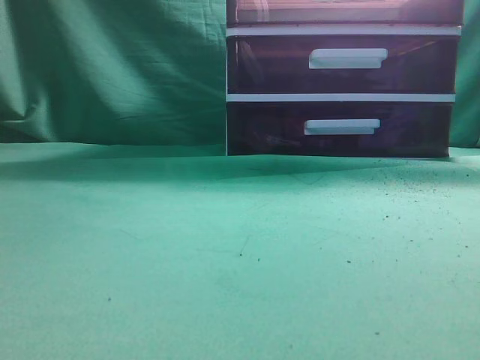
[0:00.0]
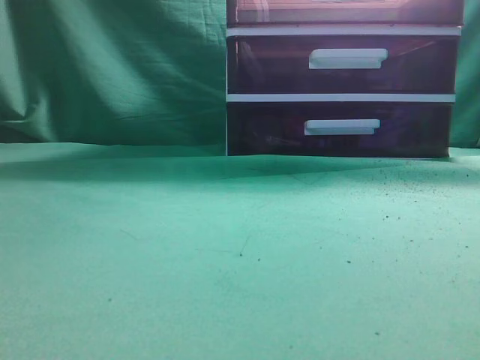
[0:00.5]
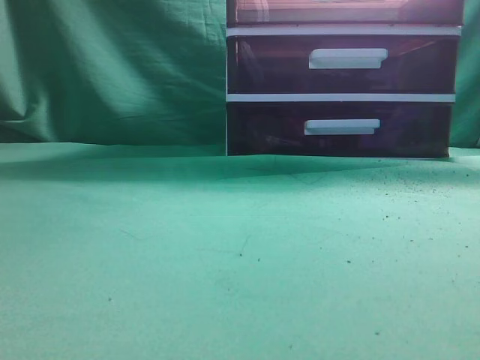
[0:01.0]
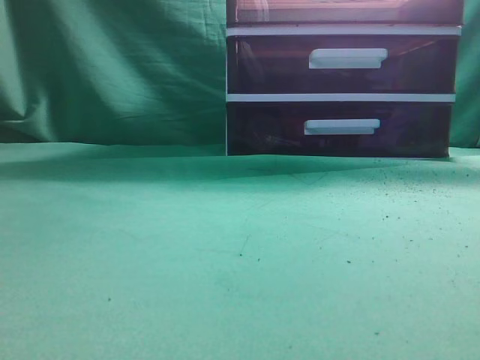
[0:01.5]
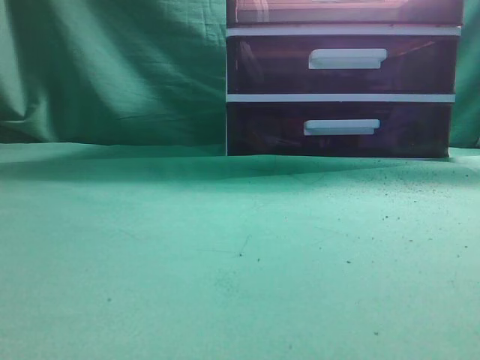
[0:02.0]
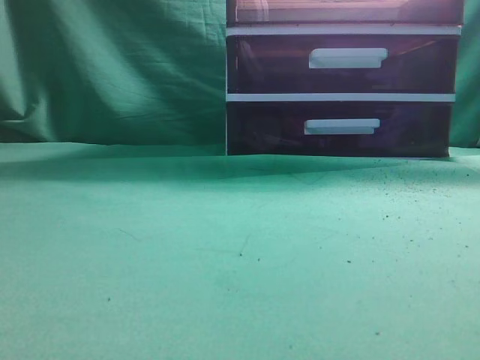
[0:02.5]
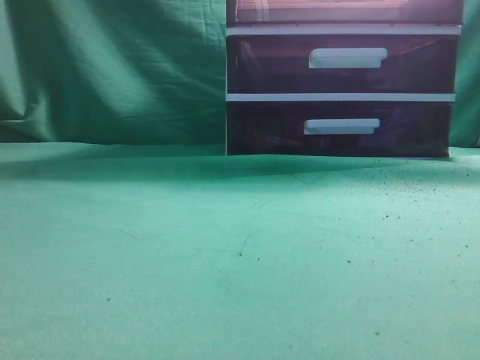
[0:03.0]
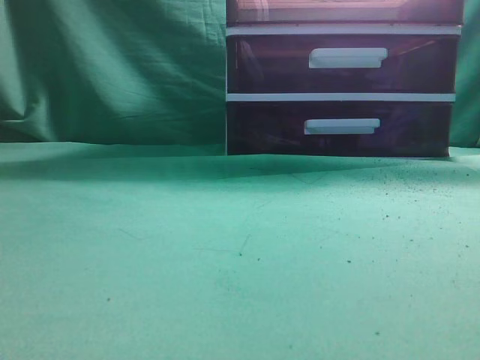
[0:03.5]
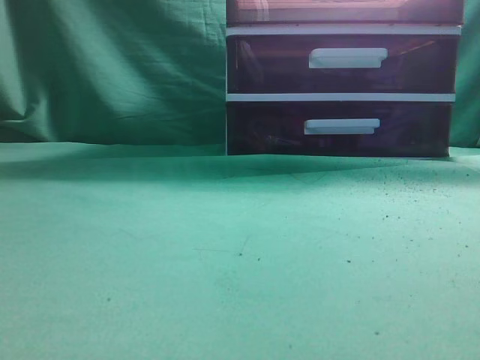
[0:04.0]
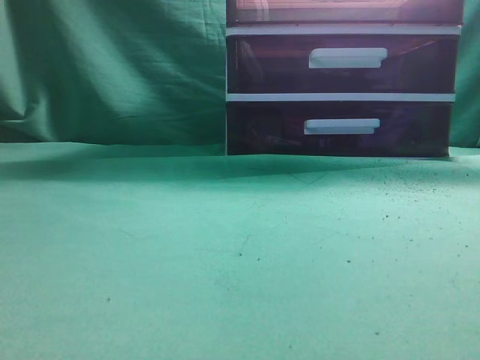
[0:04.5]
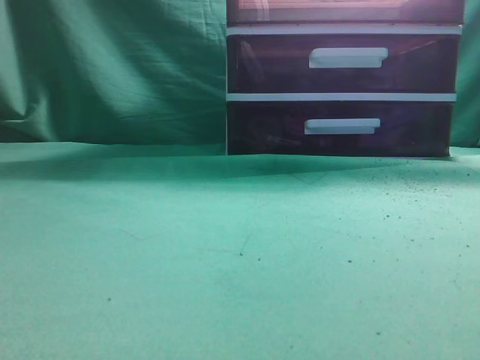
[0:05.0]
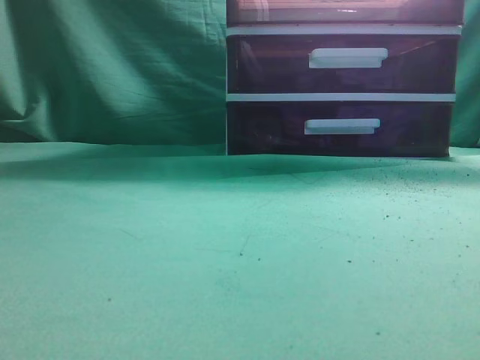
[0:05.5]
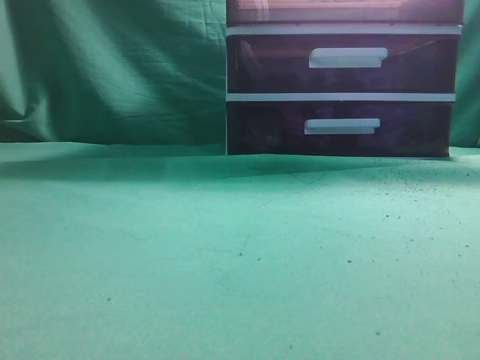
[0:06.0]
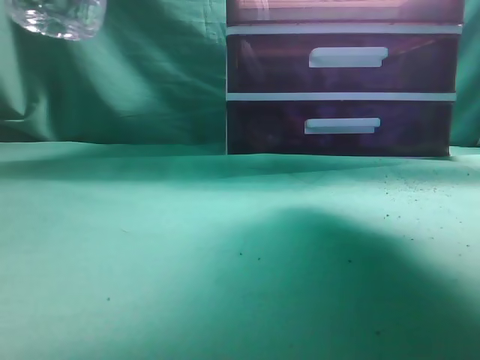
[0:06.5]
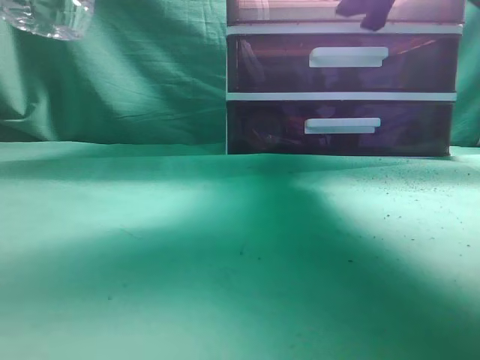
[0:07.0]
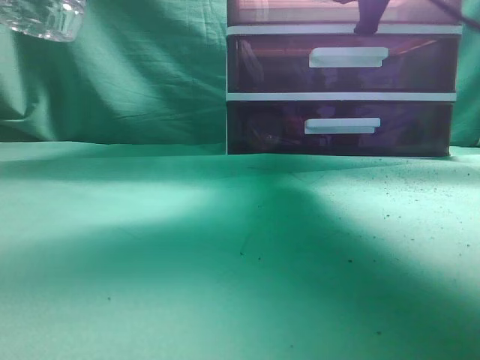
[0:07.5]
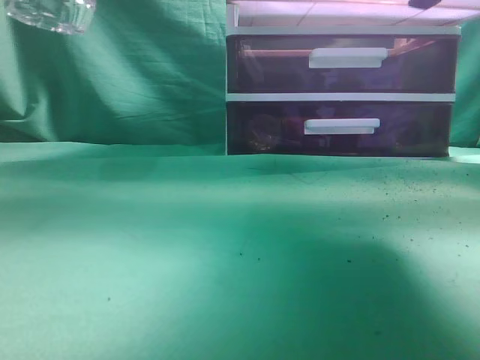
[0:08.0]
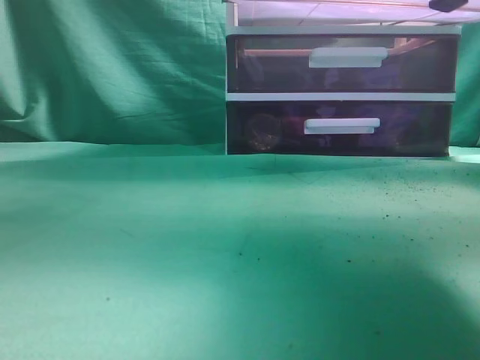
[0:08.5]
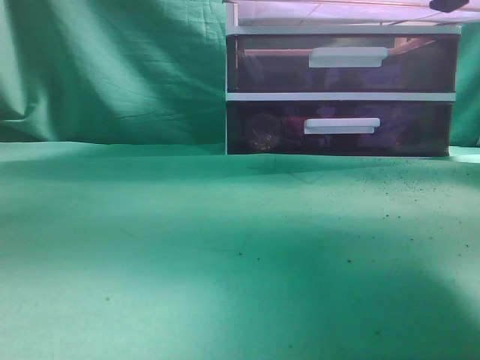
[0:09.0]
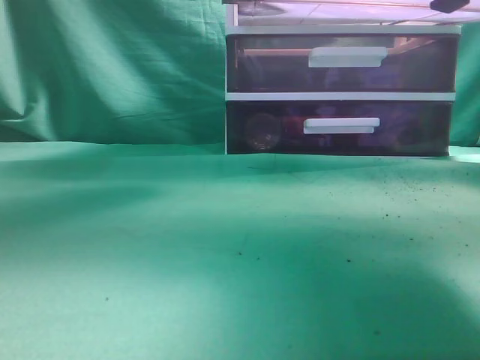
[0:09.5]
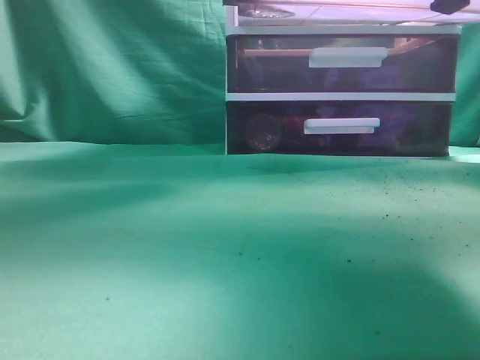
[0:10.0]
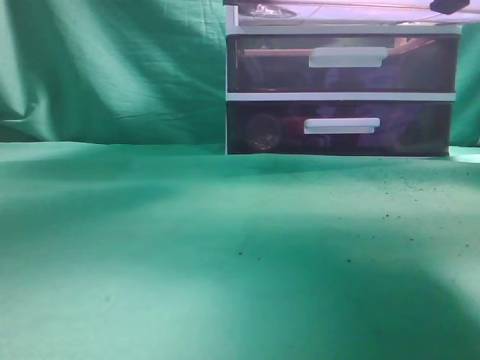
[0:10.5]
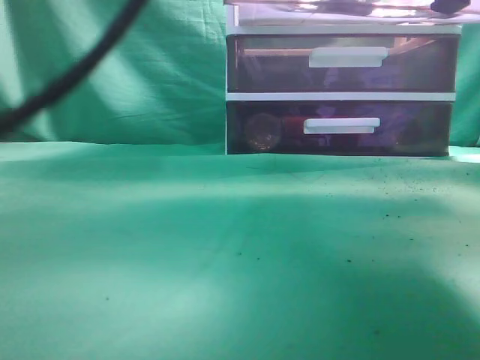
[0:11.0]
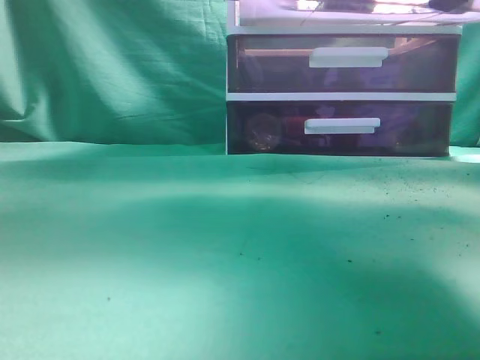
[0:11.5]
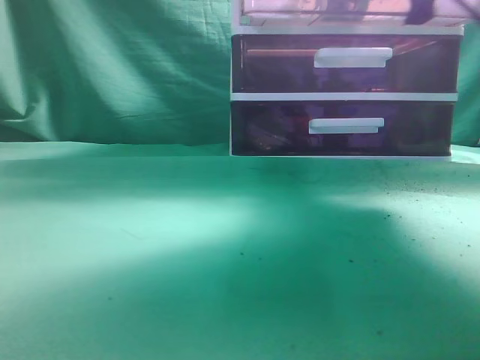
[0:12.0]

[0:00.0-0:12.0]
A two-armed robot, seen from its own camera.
Task of the whole recording: place the water bottle into the drawer.
Step, 0:00.0 to 0:08.0: Open the drawer.
Step, 0:08.5 to 0:11.0: Place the water bottle inside the drawer.
0:06.0 to 0:08.0: The right gripper heads forward, downward and to the left, covering some 15 cm, and opens, then closes once more.
0:08.0 to 0:10.0: The left gripper travels to the right and forward by some 20 cm, travels upward and back again, roughly 15 cm each way, and opens its fingers.
0:10.0 to 0:12.0: The right gripper shifts roughly 10 cm forward; the left gripper moves backward, upward and to the left, about 15 cm, and closes its fingers.

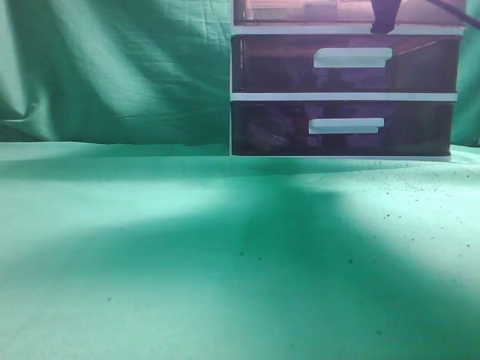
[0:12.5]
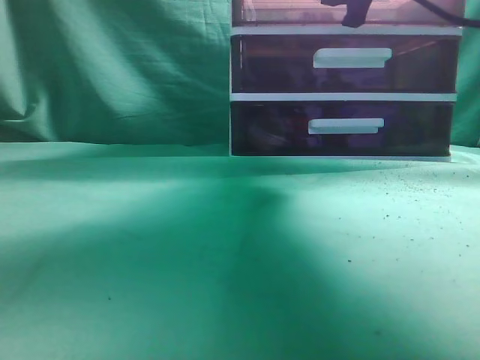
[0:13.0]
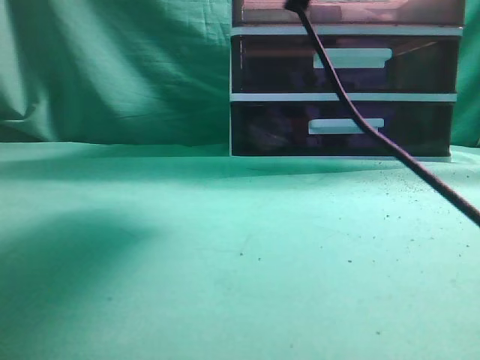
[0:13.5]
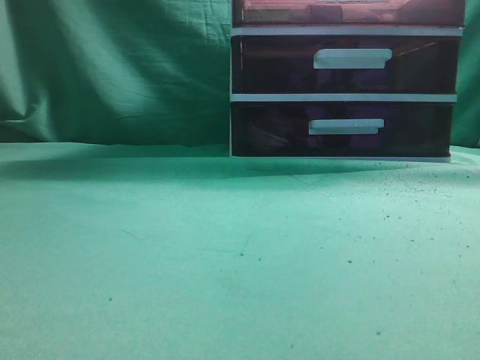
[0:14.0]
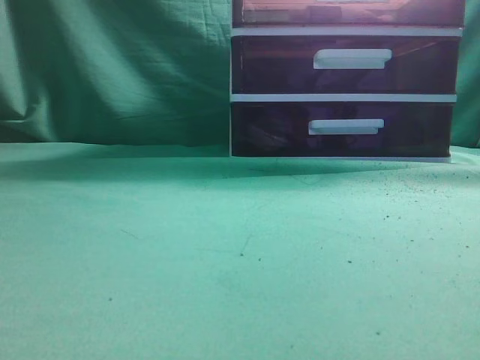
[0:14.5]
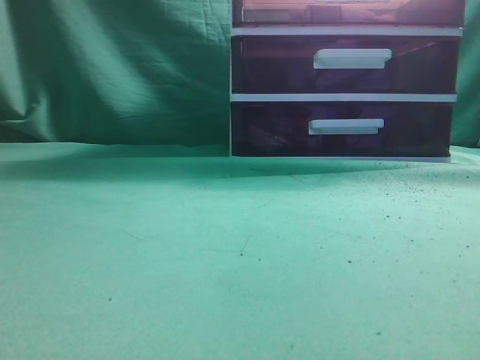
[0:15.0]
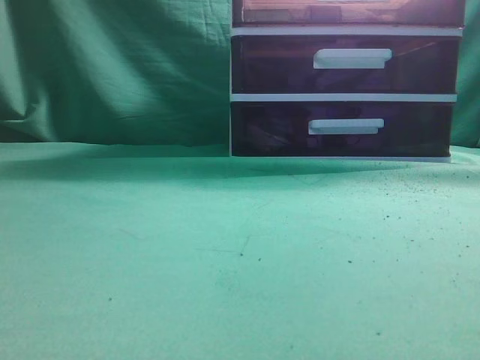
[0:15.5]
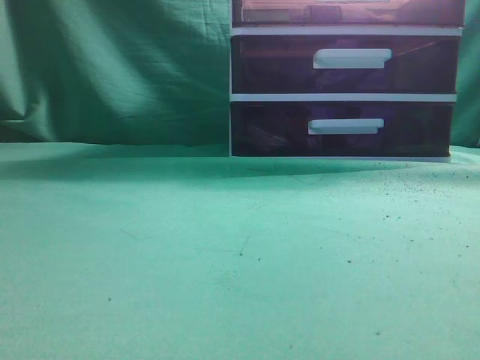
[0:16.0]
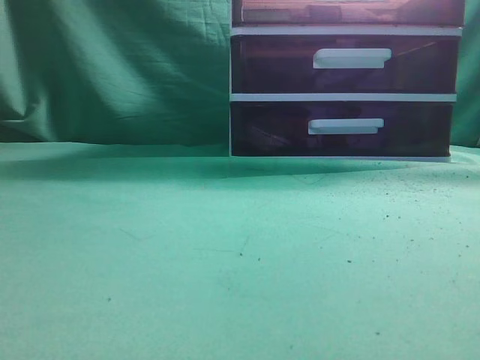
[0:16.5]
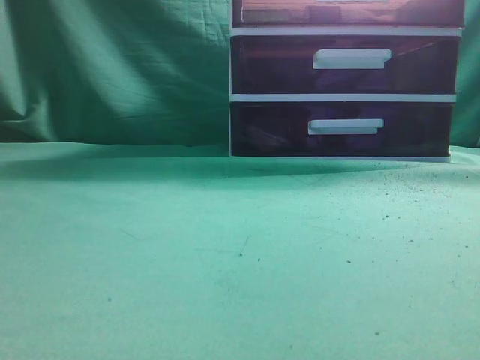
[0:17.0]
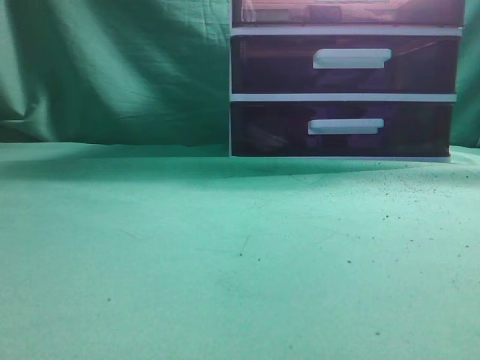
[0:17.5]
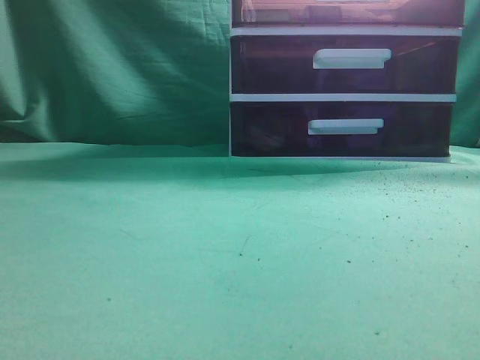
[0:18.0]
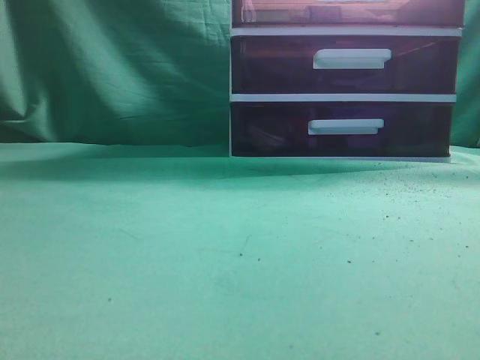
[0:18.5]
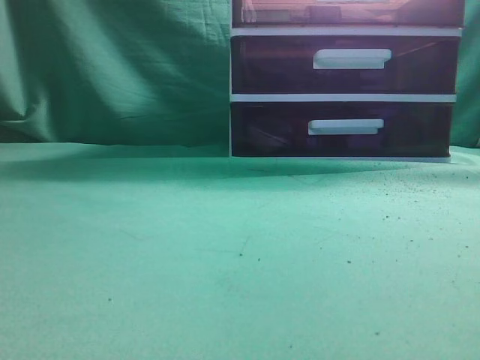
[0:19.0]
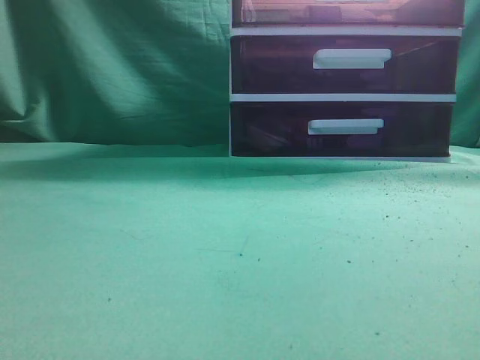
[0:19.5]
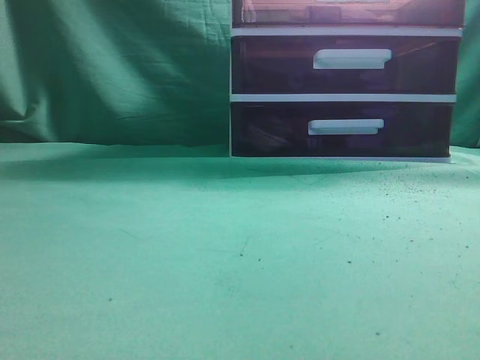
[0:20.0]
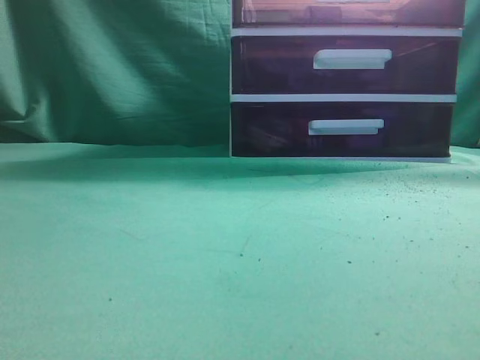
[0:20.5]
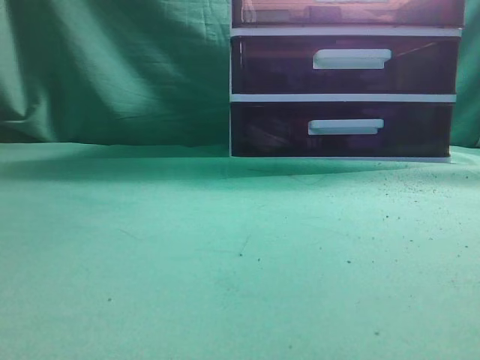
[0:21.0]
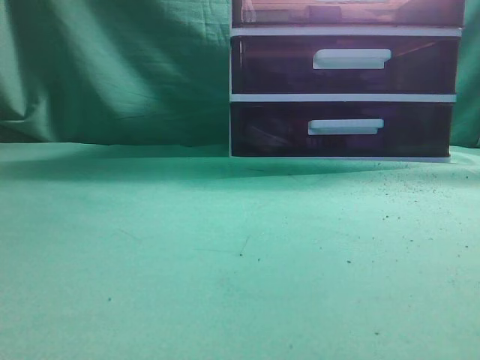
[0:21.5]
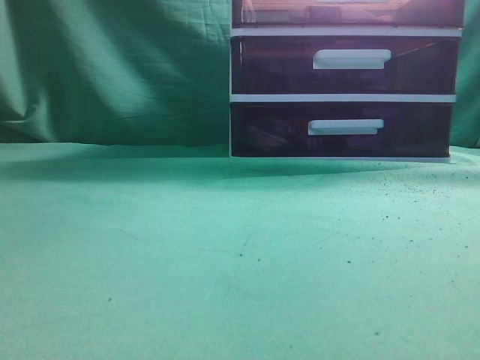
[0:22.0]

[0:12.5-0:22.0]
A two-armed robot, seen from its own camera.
Task of the whole recording: place the water bottle into the drawer.
0:12.5 to 0:14.5: The right gripper goes some 30 cm backward and upward, and opens, then closes again; the left gripper heads backward, to the left and downward, covering some 25 cm.
